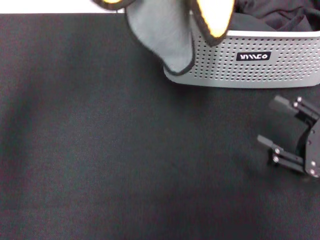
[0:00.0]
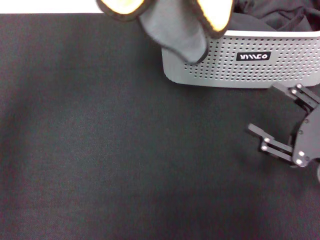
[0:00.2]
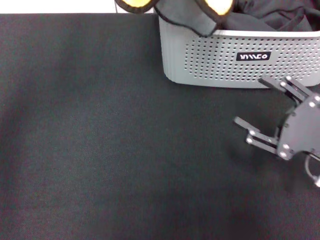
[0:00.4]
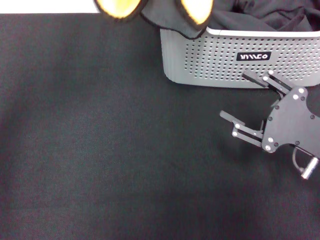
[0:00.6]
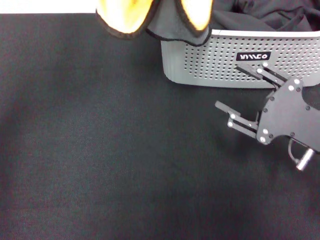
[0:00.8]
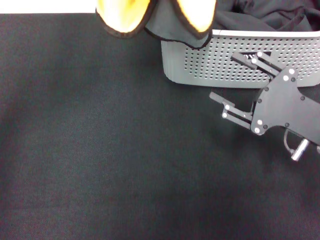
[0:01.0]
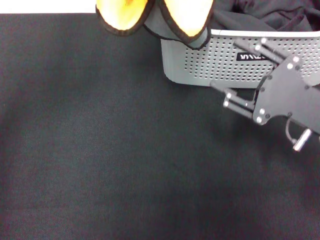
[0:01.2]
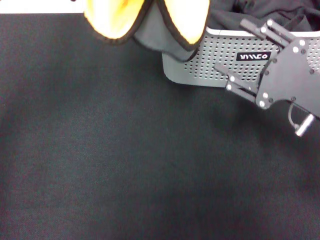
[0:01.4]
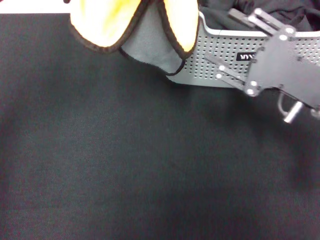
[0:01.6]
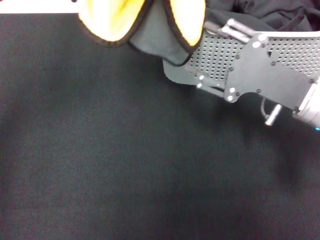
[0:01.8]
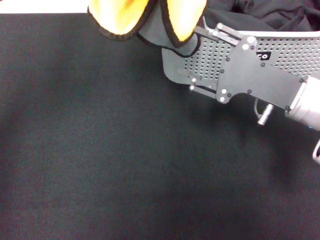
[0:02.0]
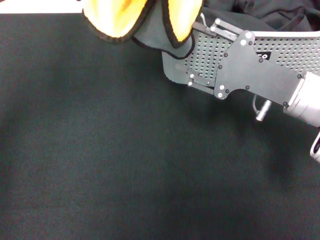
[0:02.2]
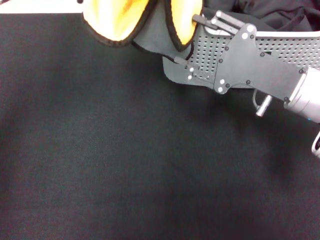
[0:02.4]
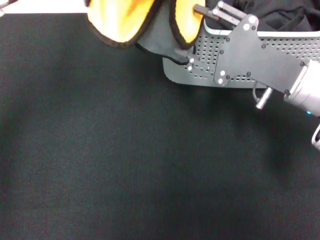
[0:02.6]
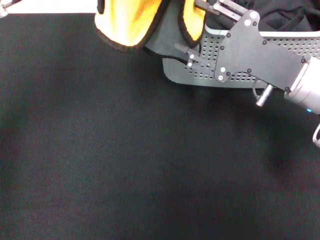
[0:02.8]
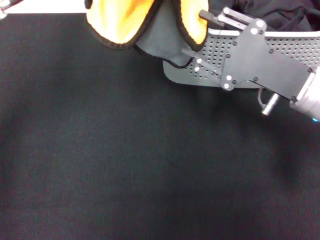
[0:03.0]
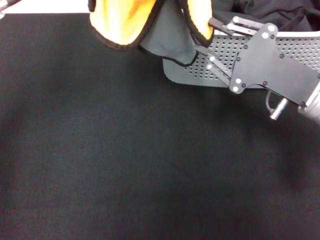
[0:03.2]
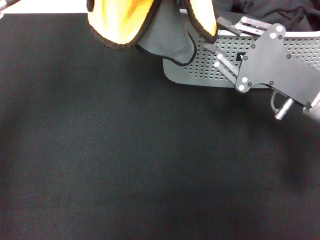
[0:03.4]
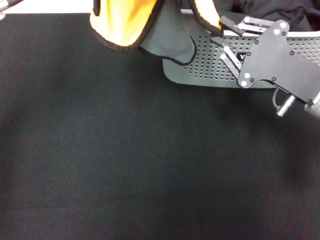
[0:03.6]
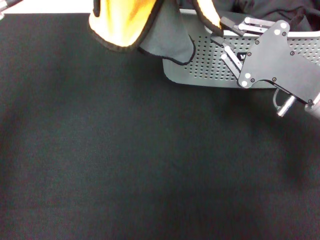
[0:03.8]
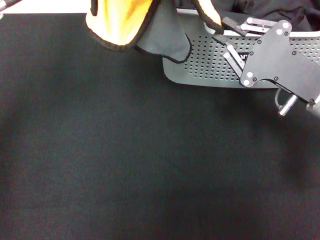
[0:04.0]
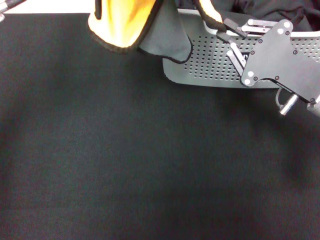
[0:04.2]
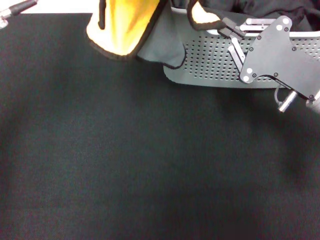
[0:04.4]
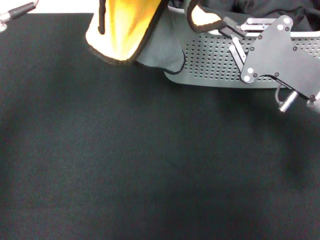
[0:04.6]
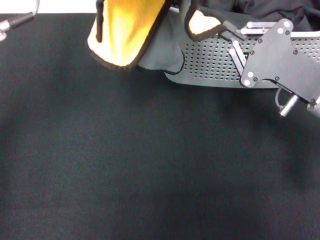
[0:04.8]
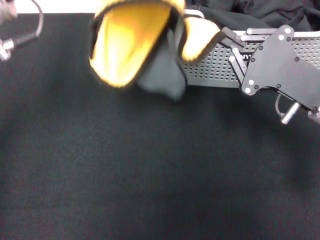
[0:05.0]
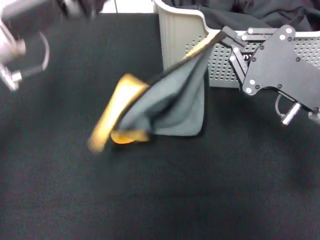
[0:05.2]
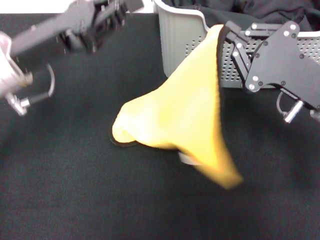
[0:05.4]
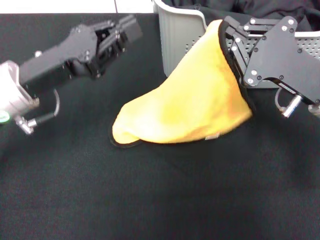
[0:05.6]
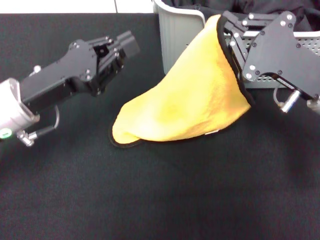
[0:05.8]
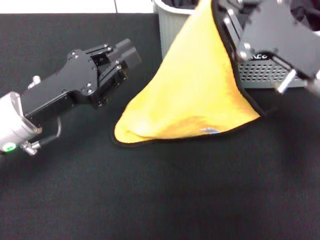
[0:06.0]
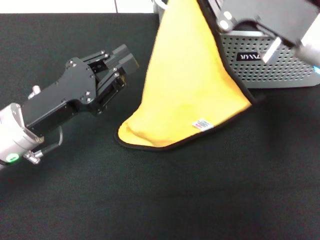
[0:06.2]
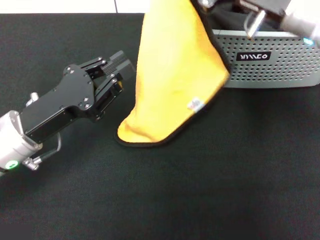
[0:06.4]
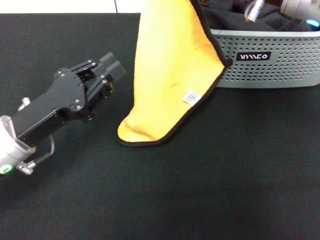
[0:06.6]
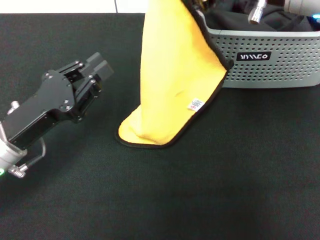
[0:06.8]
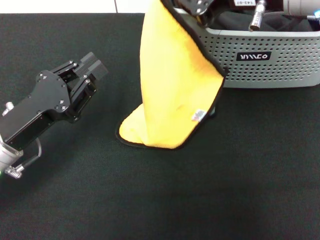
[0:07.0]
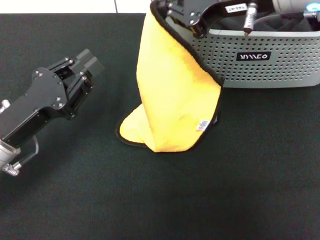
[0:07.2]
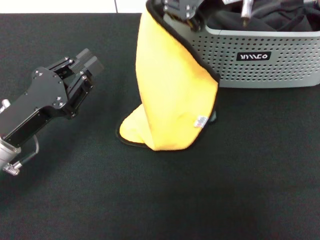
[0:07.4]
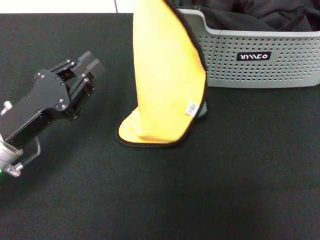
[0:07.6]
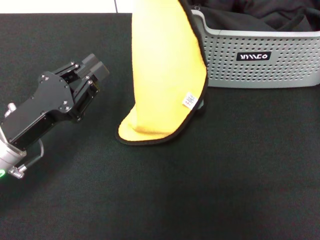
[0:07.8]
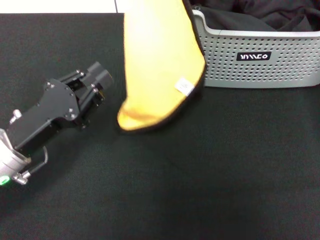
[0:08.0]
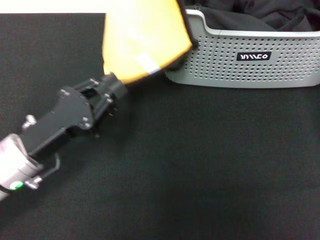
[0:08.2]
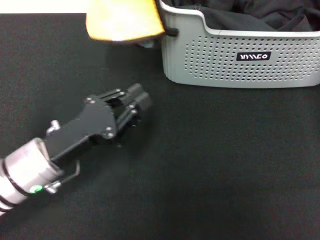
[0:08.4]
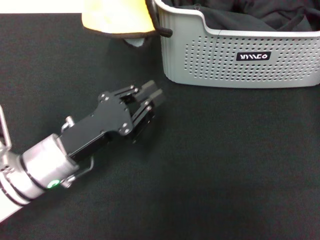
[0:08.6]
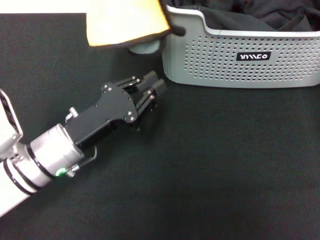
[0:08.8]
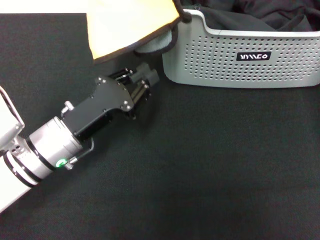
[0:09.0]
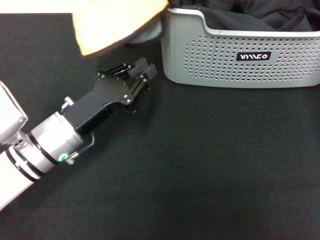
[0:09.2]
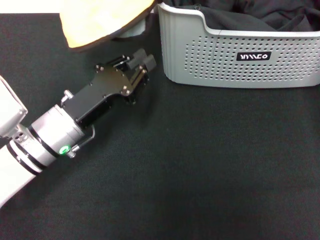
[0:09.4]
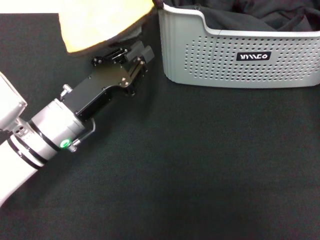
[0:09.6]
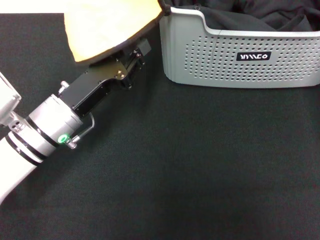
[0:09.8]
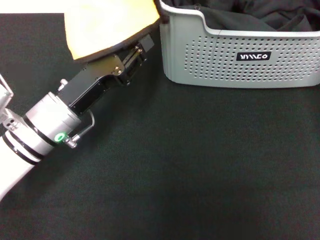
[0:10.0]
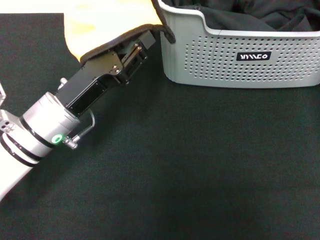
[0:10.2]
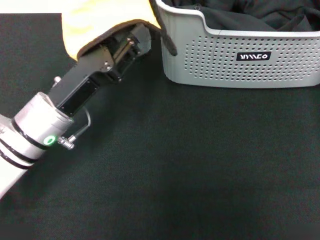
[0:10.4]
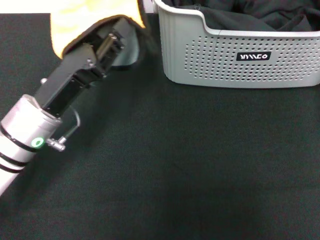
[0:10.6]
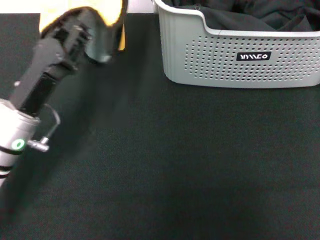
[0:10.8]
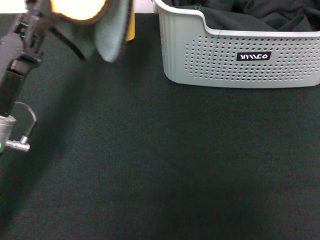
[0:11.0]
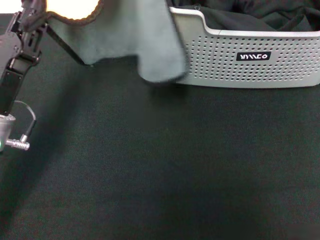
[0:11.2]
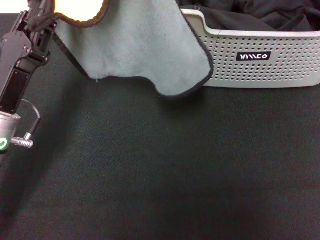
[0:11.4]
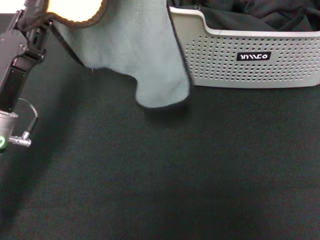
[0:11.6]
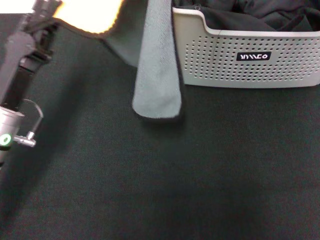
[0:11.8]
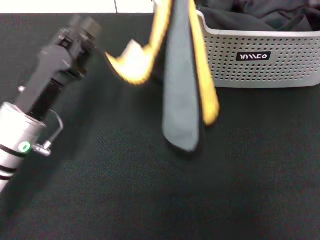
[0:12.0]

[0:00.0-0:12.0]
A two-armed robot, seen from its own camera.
Task of the whole recording: pick up the towel from the storage box and lay it flat on the black tablecloth.
Step, 0:00.0 to 0:04.2: Spread the towel flat with the left gripper.
0:00.0 to 0:01.6: The right gripper heads forward, to the left and upward, covering roughly 10 cm. Meanwhile the left gripper ends up approximately 5 cm from where it was.
0:01.6 to 0:03.0: There are only small adjustments of the grippers.
0:03.0 to 0:04.4: The right gripper closes.
0:04.4 to 0:06.0: The left gripper goes roughly 15 cm downward.
0:06.0 to 0:07.6: The right gripper moves upward and to the left, approximately 20 cm. The left gripper changes place by roughly 5 cm.
0:07.6 to 0:09.0: The left gripper is displaced to the right by about 5 cm; the right gripper moves upward, approximately 10 cm.
0:09.0 to 0:10.4: The grippers make only small movements.
0:10.4 to 0:12.0: The right gripper moves to the right, downward and backward, about 15 cm.

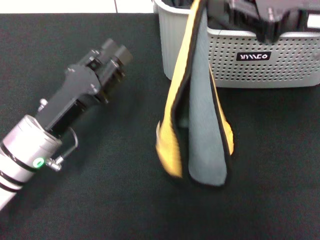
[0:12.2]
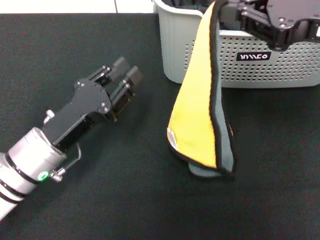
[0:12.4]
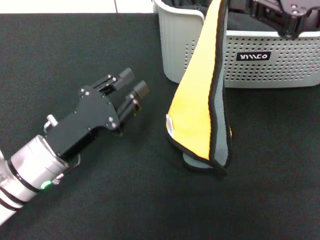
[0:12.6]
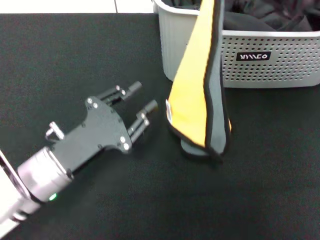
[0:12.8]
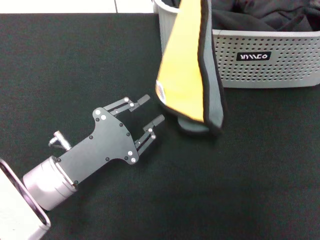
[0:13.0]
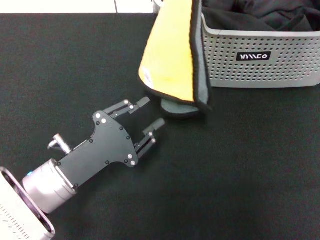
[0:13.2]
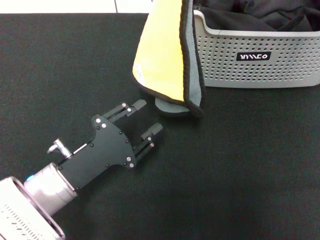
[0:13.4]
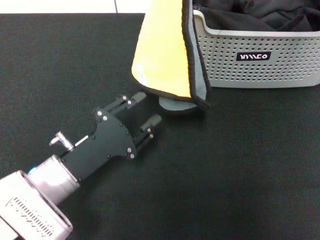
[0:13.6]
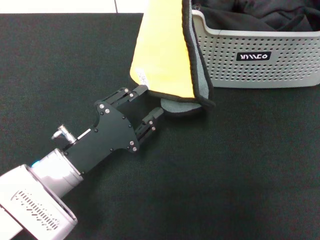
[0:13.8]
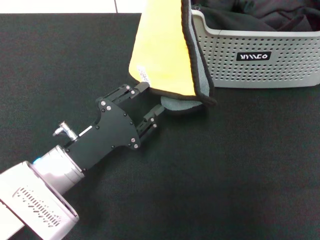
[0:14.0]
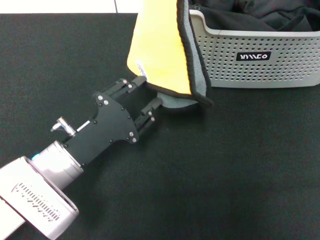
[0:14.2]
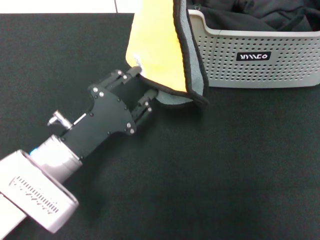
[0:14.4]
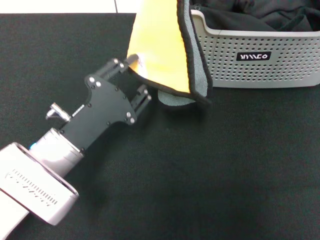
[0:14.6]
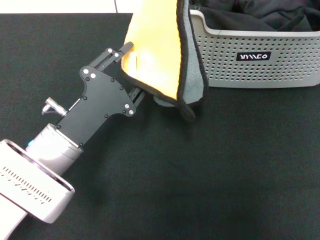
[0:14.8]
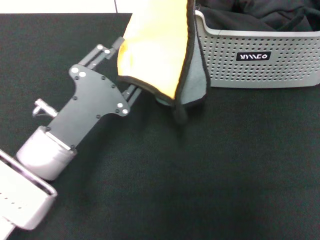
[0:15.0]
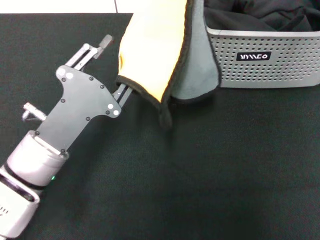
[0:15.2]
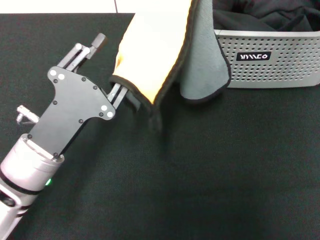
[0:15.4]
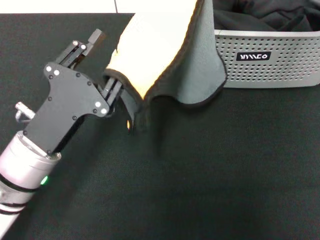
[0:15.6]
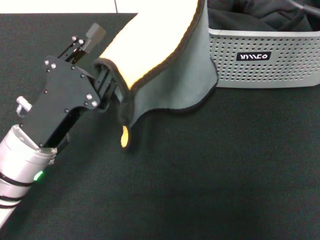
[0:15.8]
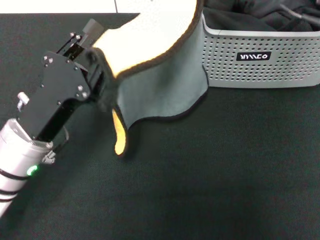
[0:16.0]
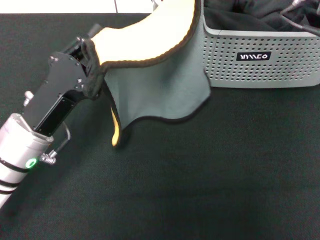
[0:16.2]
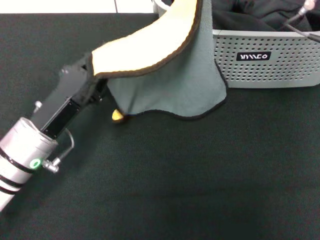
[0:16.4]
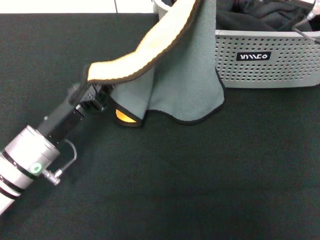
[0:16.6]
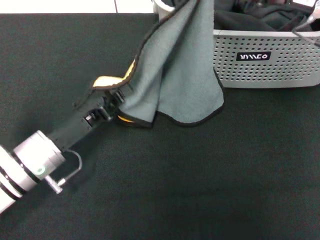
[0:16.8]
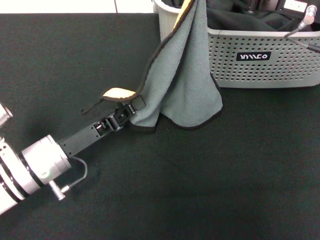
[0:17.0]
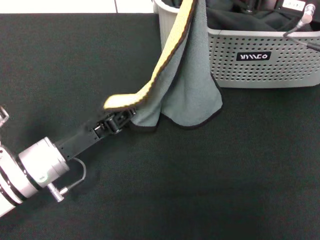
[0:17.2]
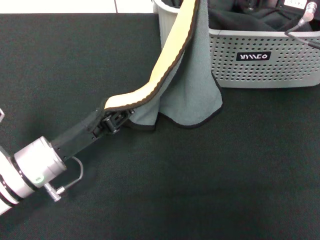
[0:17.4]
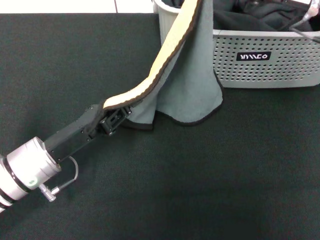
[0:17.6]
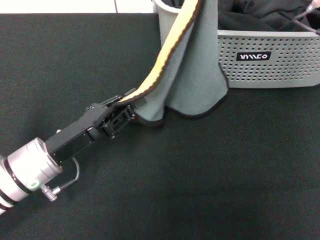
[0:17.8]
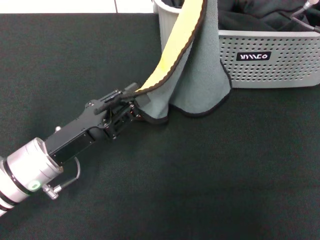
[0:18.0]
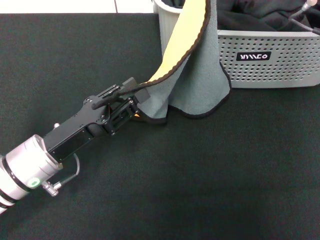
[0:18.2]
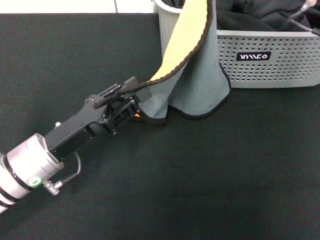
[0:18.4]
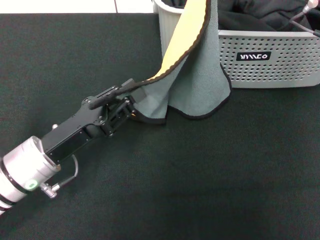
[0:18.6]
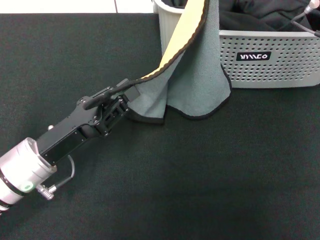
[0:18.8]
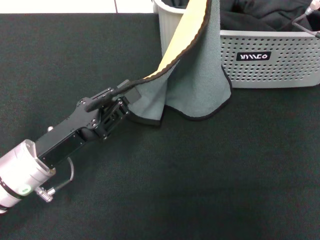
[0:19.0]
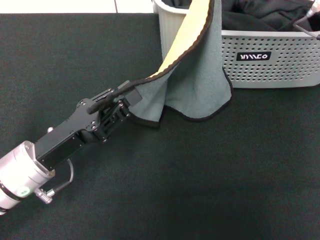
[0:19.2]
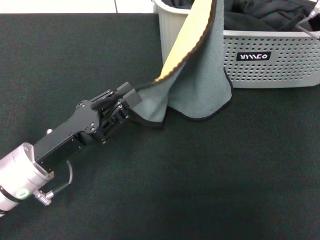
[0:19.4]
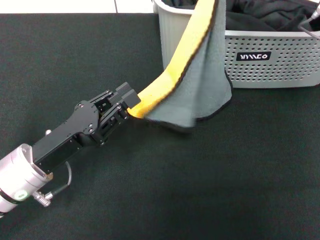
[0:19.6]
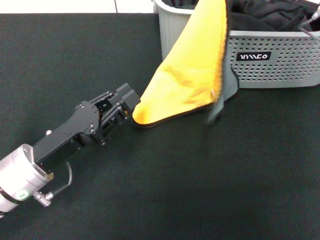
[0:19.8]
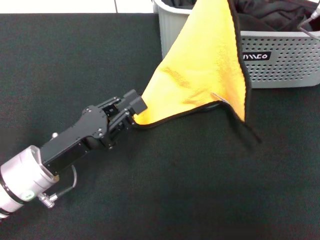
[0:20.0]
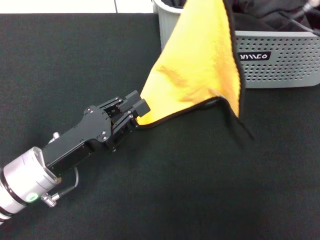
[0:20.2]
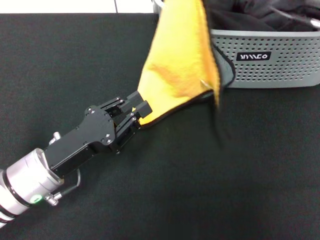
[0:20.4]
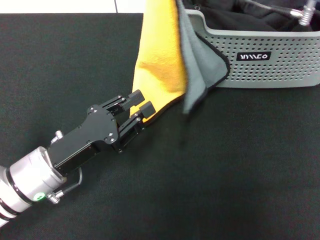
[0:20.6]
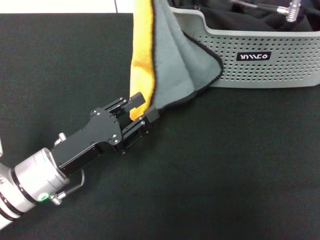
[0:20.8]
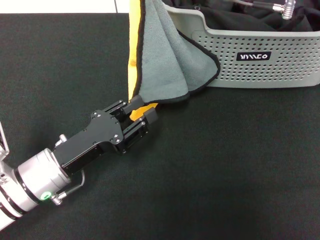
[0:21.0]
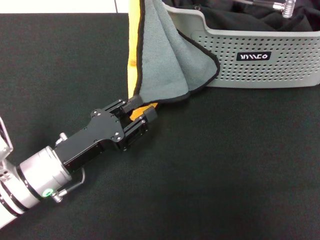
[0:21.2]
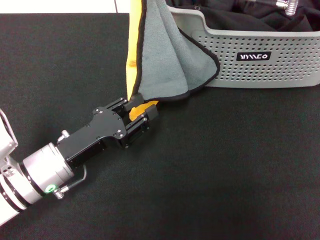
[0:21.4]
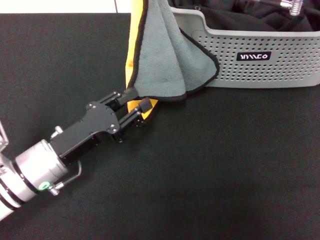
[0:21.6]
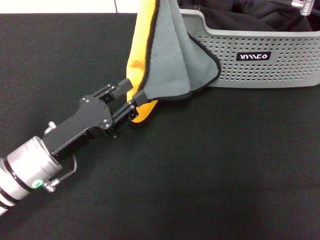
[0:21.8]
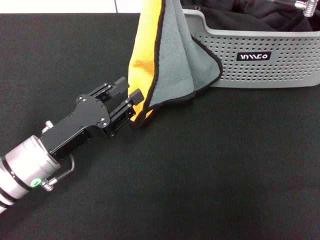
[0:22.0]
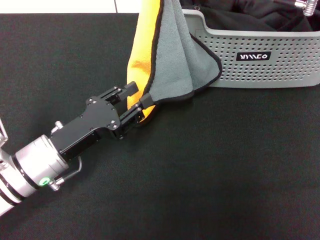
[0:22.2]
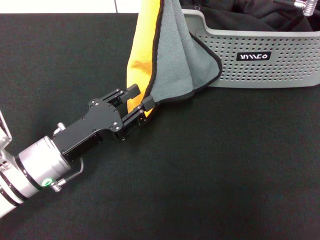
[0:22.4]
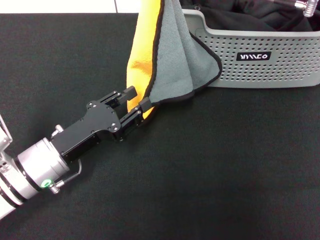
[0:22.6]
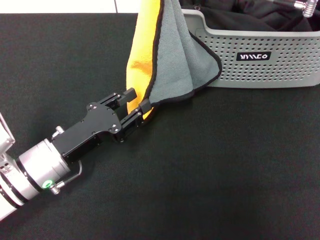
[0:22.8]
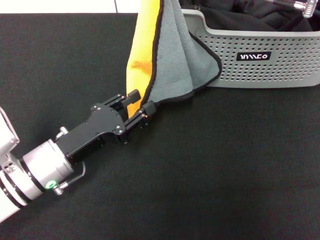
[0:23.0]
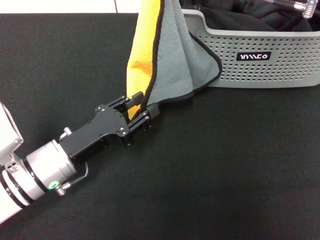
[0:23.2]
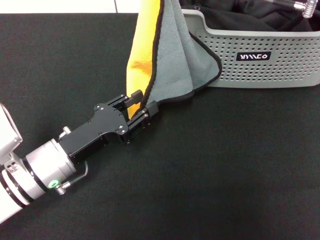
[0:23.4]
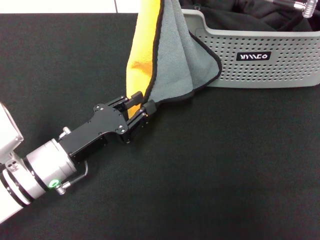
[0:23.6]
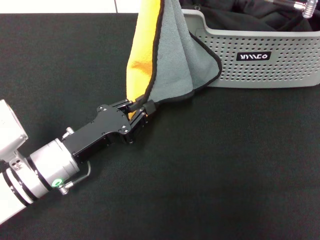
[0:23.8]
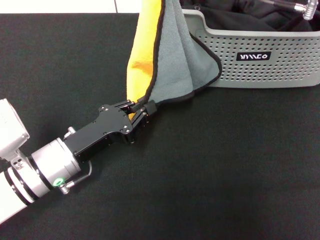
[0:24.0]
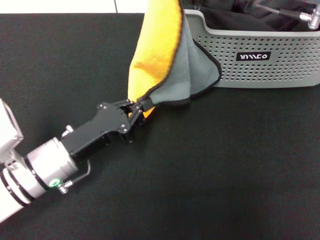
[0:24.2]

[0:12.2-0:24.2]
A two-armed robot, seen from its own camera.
Task of the whole recording: pick up the towel from the storage box and lay it flat on the black tablecloth.
0:12.2 to 0:13.8: The right gripper travels forward by approximately 5 cm.
0:15.2 to 0:16.6: The right gripper is displaced downward by about 5 cm. Meanwhile the left gripper closes.
0:16.6 to 0:18.2: The left gripper opens its fingers.
0:18.2 to 0:19.8: There are only small adjustments of the grippers.
0:19.8 to 0:21.2: The right gripper travels to the left by about 10 cm.
0:21.2 to 0:22.6: There are only small adjustments of the grippers.
0:22.6 to 0:24.2: The left gripper closes its fingers.
